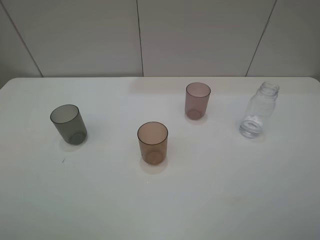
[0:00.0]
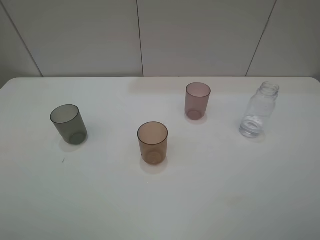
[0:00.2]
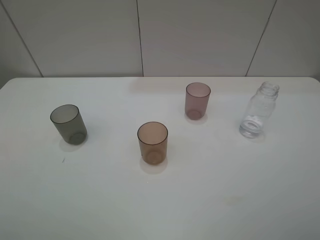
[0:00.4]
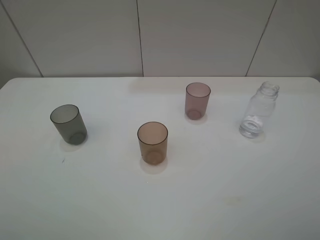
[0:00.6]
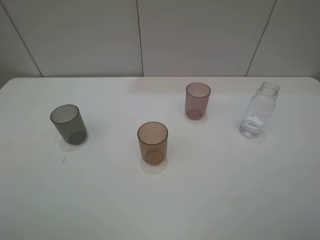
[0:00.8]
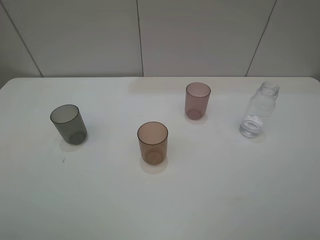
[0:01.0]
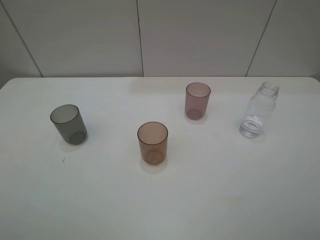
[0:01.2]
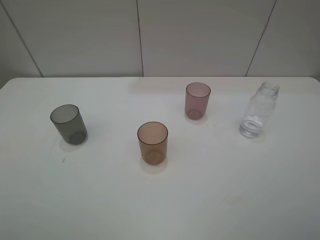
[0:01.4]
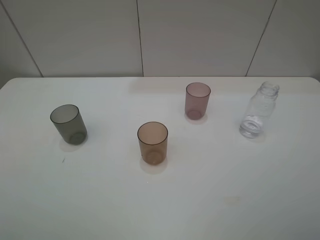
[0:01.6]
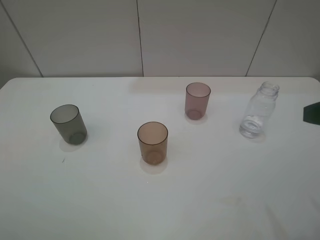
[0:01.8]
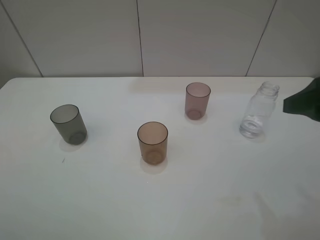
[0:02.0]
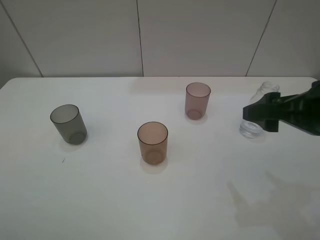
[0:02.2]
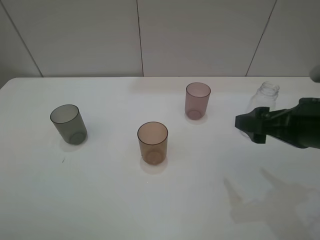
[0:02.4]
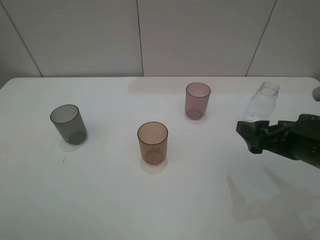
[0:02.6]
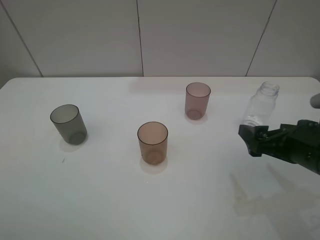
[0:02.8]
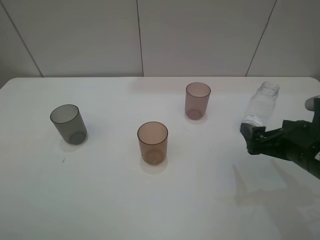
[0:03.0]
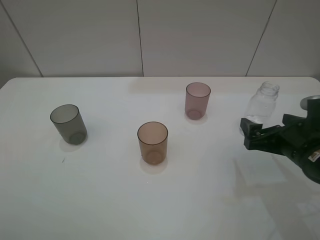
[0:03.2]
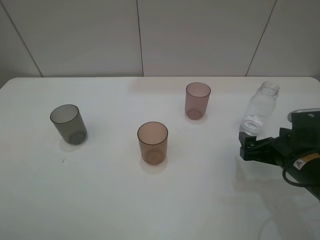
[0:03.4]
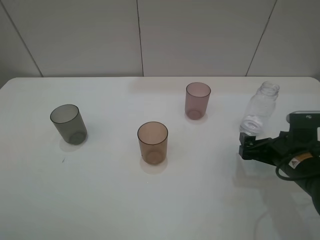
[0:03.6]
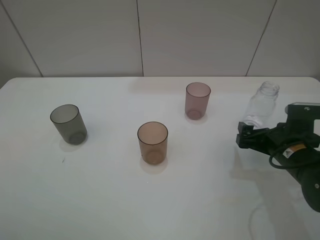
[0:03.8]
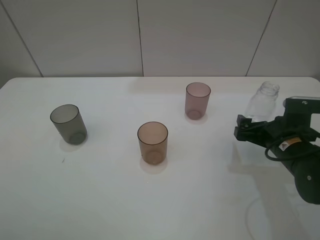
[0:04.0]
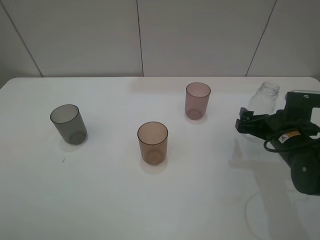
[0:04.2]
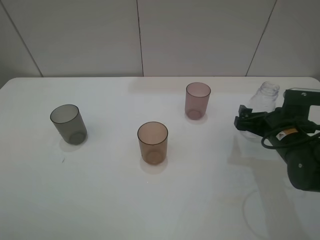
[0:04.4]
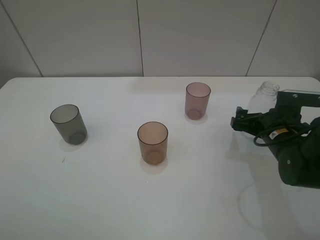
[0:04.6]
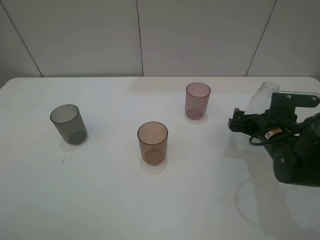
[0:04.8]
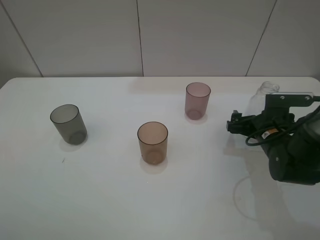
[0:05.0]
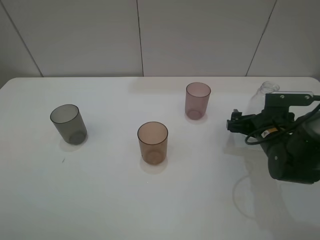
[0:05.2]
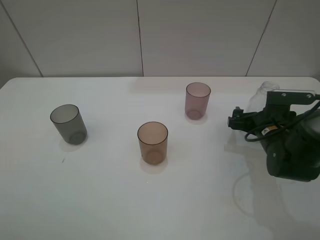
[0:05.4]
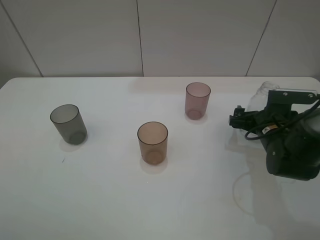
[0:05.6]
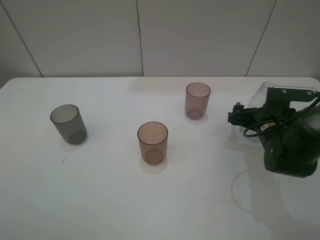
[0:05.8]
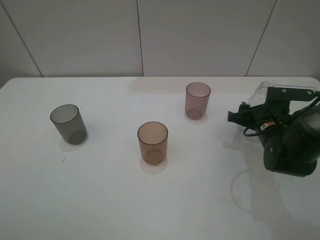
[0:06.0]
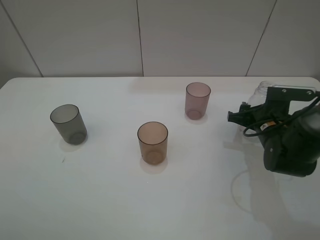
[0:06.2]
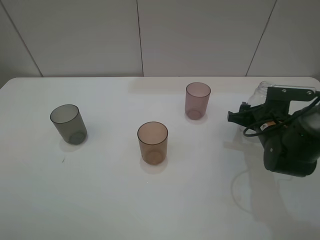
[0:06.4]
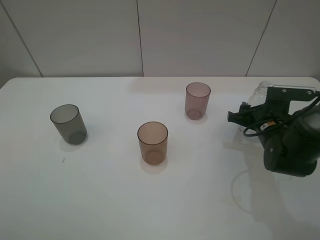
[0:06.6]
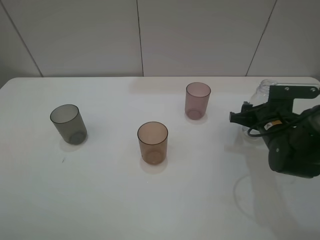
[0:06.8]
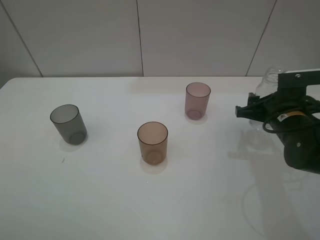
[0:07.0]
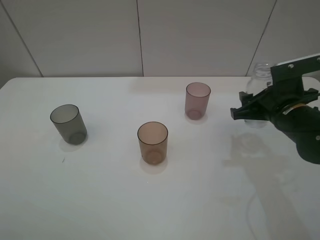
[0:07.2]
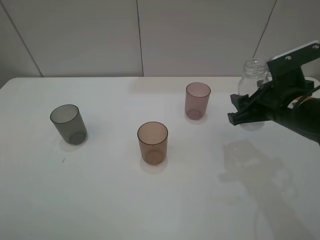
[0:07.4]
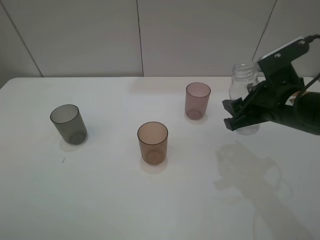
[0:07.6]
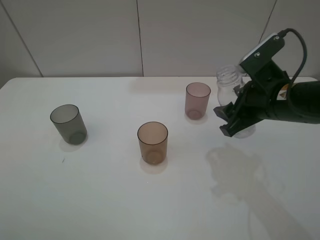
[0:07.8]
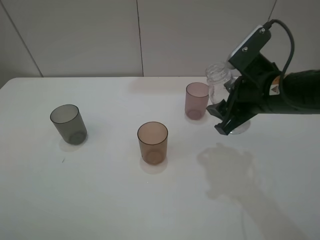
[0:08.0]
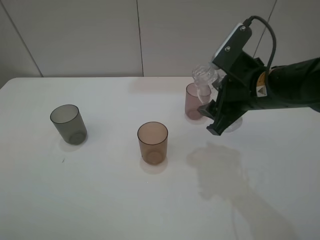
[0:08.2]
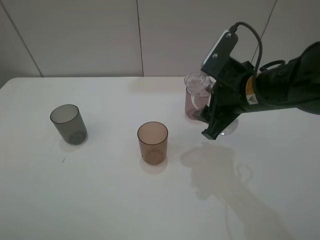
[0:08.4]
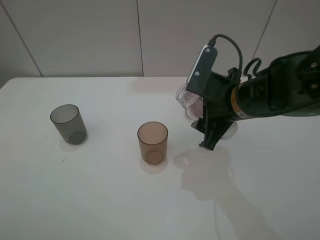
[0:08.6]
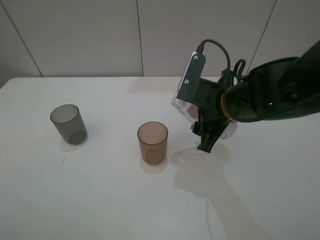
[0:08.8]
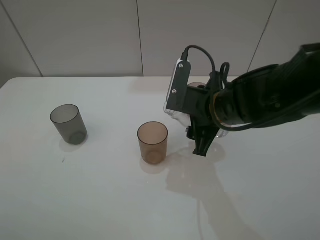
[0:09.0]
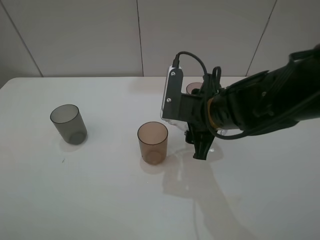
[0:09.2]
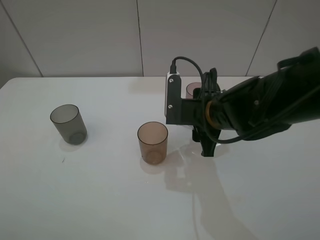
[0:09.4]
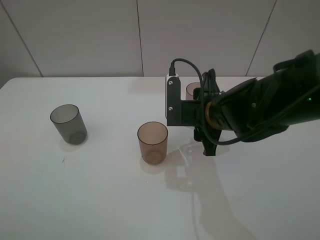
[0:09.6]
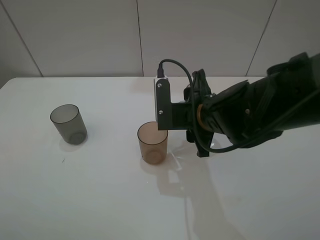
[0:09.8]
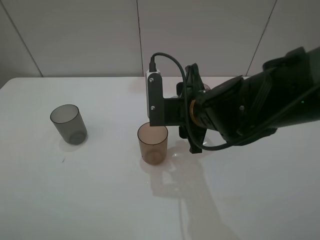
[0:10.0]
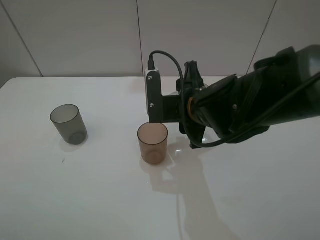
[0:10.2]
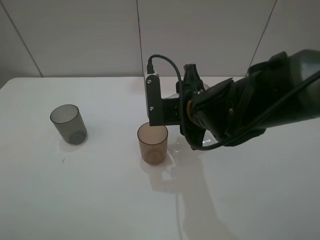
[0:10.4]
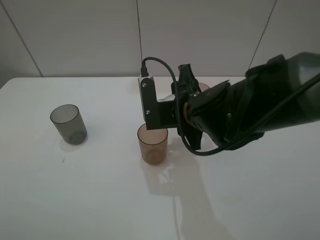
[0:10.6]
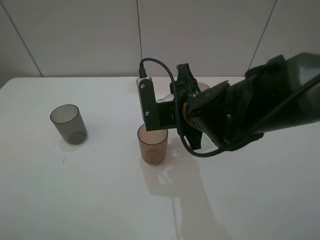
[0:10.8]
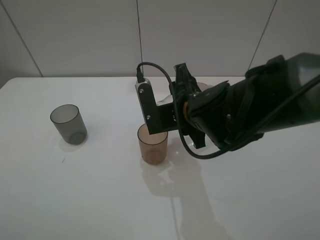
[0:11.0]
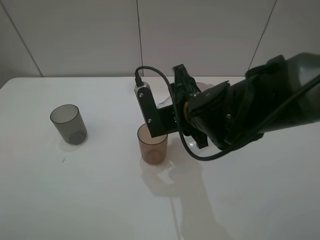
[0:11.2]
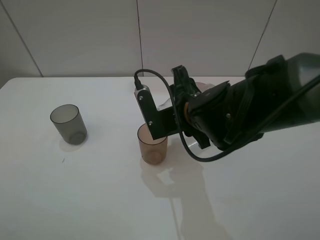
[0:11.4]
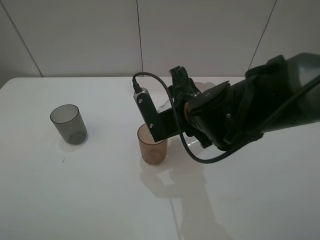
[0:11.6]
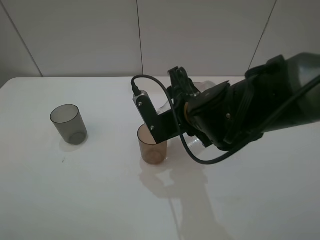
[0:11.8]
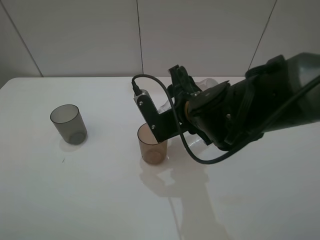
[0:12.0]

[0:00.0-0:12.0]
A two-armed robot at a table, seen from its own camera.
Task of the whole recording: pick up the bottle filled with water and pour water into the middle cup of the three cups.
Step, 0:00.0 to 0:06.8: Grasp the transparent bottle with the right gripper.
0:01.6 to 0:03.0: The right gripper heads downward and forward, covering roughly 20 cm.
0:03.0 to 0:04.4: The right gripper goes approximately 5 cm forward.
0:04.4 to 0:06.0: The right gripper closes up.
0:06.0 to 0:07.6: The right gripper heads upward, covering about 10 cm.
0:07.6 to 0:09.0: The right gripper moves to the left, about 10 cm.

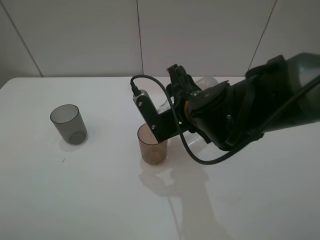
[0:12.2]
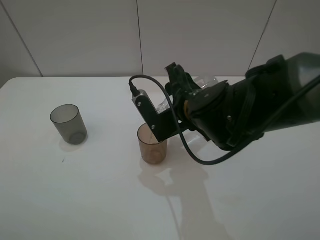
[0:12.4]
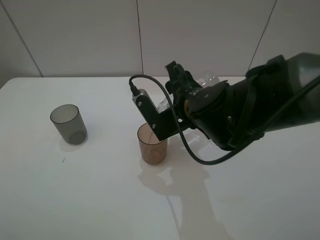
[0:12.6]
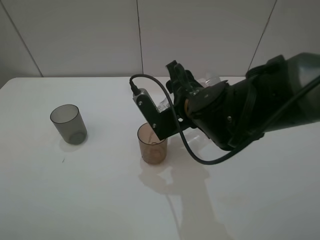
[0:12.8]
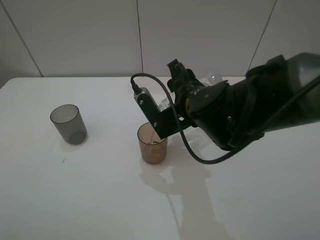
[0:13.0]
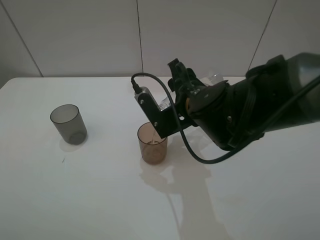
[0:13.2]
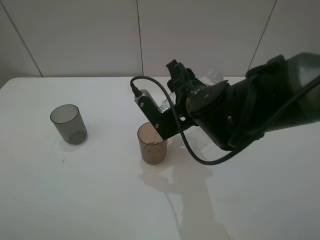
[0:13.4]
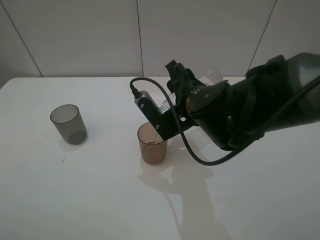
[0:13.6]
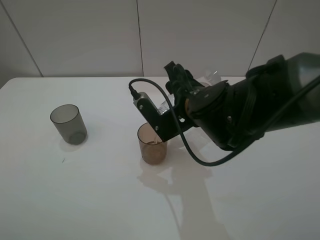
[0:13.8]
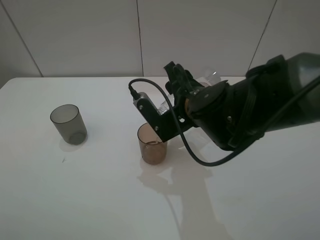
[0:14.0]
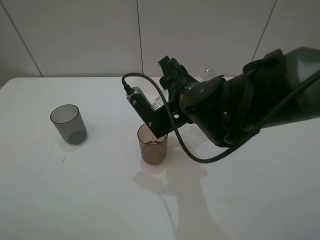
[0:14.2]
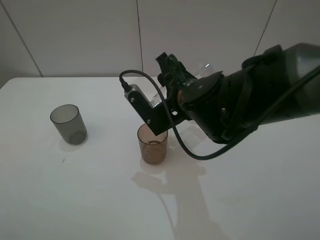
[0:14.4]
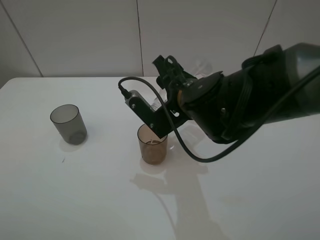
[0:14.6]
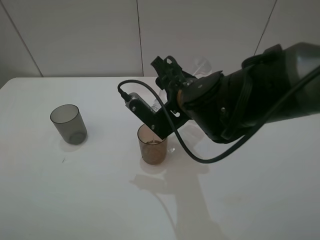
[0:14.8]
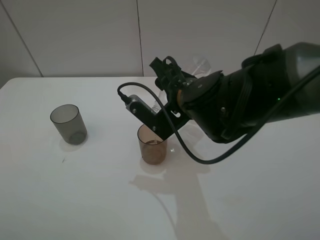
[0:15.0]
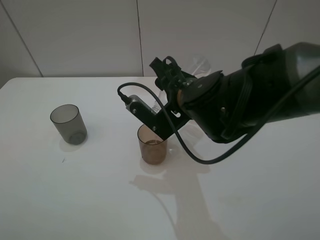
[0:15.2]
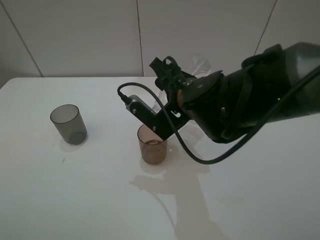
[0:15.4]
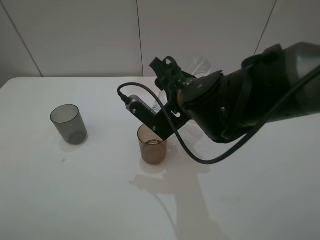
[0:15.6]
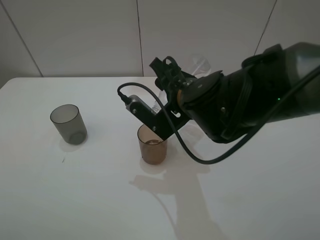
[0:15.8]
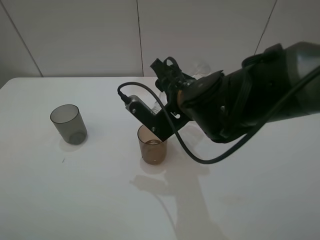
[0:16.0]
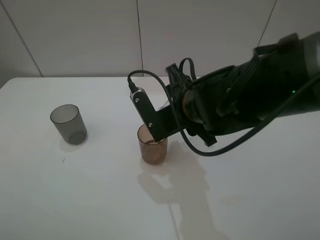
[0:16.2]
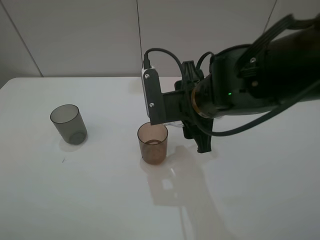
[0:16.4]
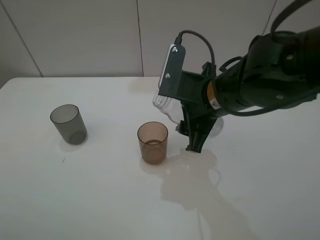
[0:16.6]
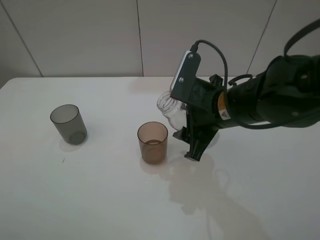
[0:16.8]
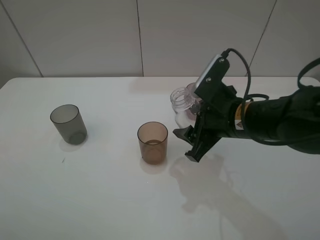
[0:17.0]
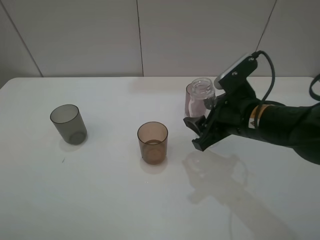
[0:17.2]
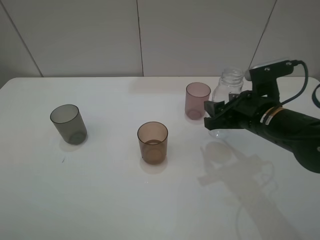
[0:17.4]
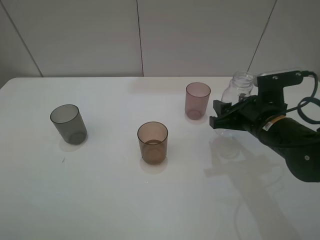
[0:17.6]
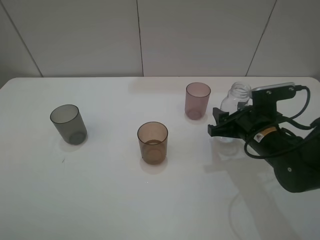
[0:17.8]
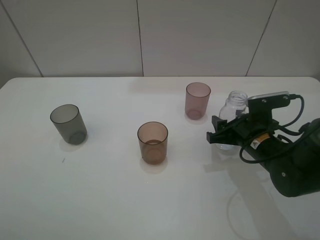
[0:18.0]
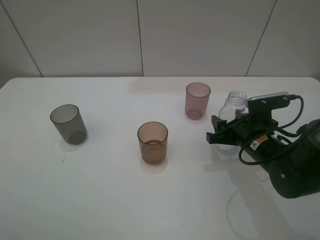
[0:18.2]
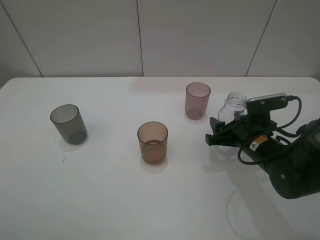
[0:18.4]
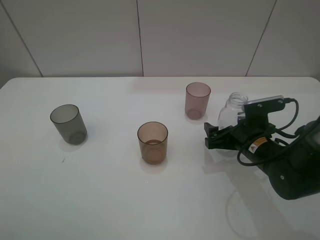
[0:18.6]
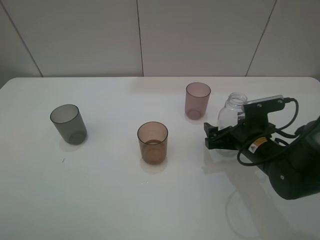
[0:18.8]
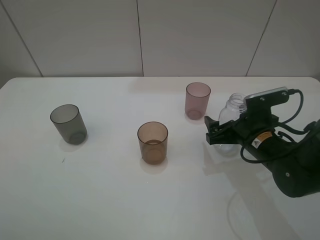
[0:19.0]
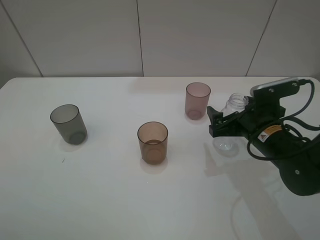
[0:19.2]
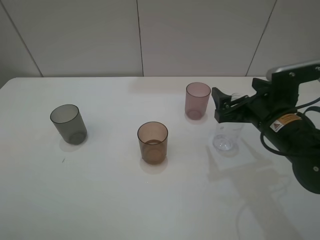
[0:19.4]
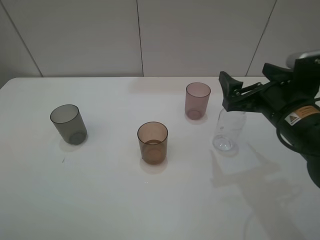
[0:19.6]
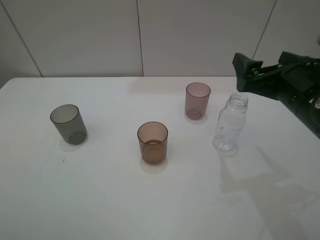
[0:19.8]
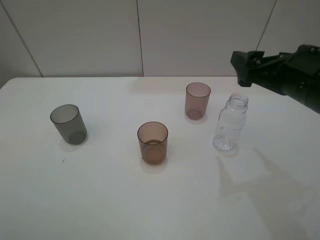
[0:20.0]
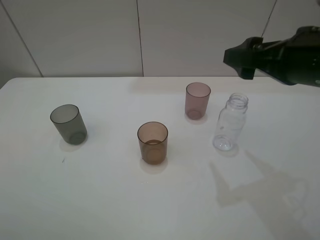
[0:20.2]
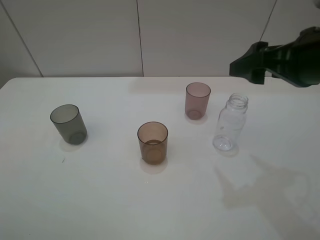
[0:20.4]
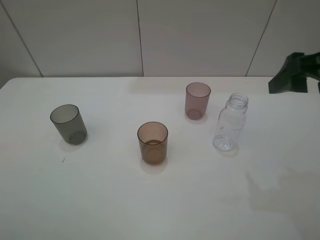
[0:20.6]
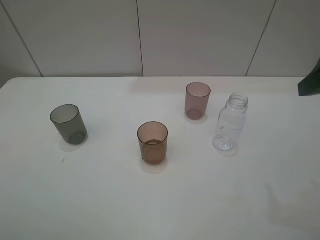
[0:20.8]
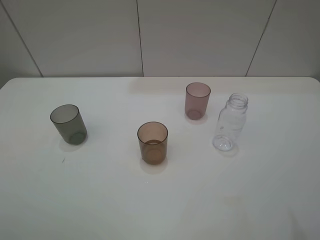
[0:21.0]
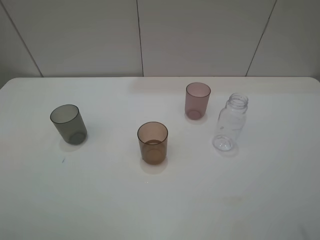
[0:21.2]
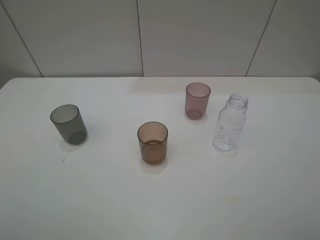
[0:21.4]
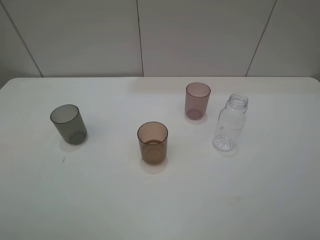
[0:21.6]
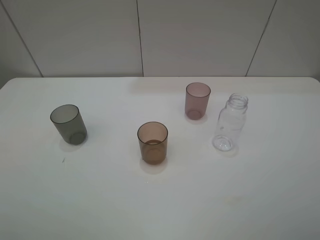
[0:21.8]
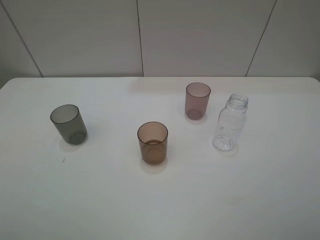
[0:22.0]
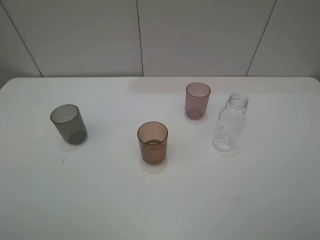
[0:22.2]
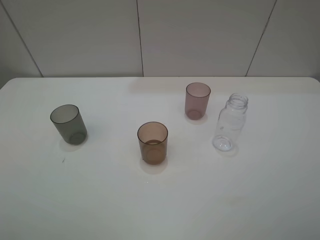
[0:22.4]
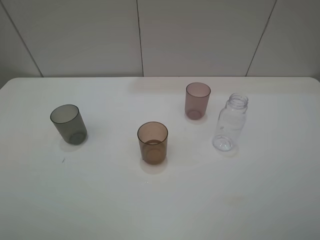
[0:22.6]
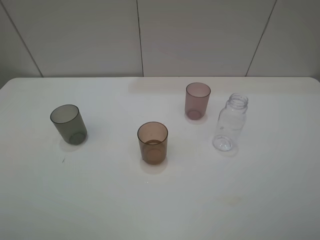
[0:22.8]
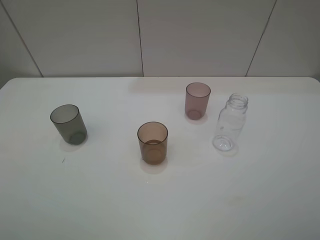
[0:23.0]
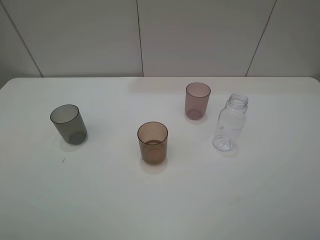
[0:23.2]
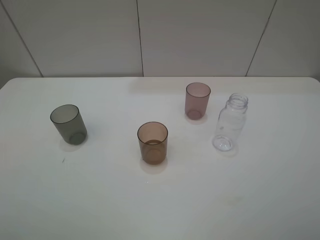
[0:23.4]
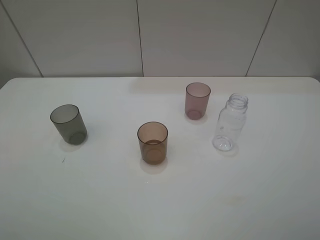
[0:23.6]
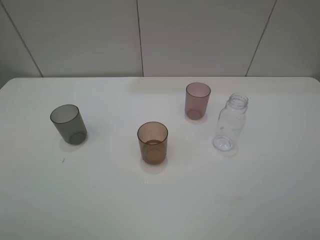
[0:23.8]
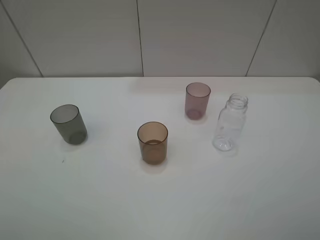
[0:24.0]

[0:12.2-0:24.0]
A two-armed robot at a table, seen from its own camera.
Task of the whole recording: pick up the bottle filled with water and pour water into the middle cup of the three cups.
Step, 0:12.2 to 0:16.4: Pour water from transparent bottle tobrown cup with the right gripper.
Step, 0:16.6 to 0:19.6: Place the transparent bottle with the right gripper.
0:12.2 to 0:15.2: There are only small adjustments of the grippers.
0:16.6 to 0:18.2: The right gripper shifts about 15 cm downward and to the right.
0:18.2 to 0:19.6: The right gripper shifts roughly 10 cm upward, and opens up.
0:19.6 to 0:21.0: The right gripper moves upward, backward and to the right, about 20 cm.
